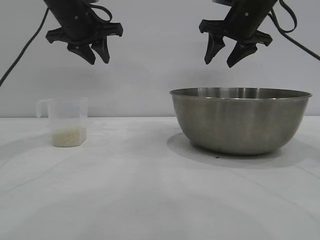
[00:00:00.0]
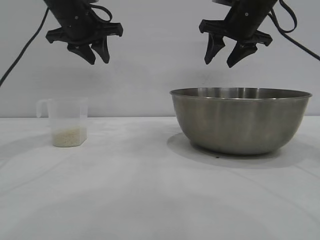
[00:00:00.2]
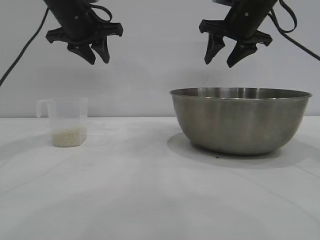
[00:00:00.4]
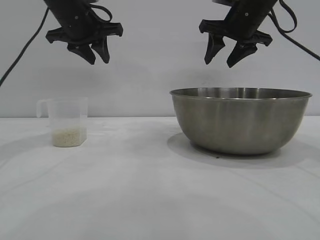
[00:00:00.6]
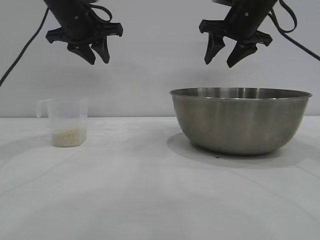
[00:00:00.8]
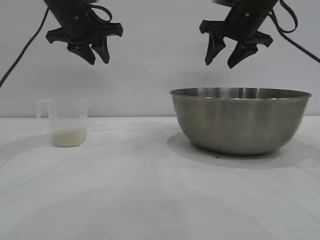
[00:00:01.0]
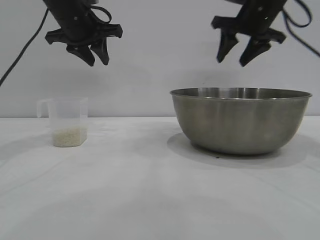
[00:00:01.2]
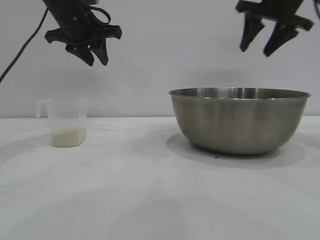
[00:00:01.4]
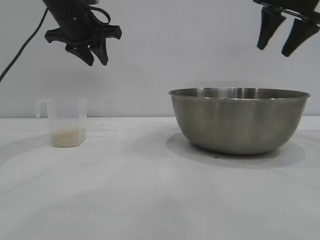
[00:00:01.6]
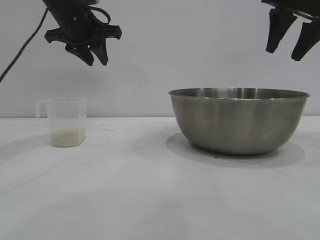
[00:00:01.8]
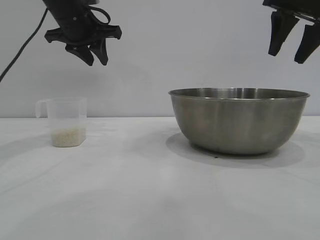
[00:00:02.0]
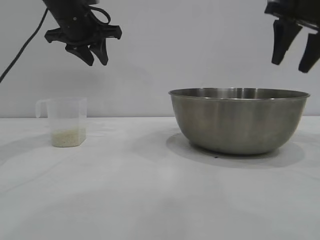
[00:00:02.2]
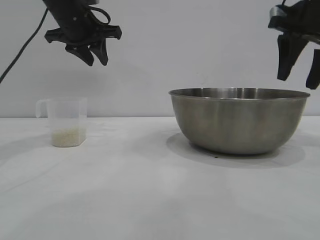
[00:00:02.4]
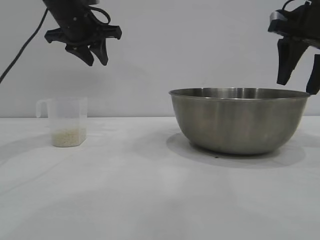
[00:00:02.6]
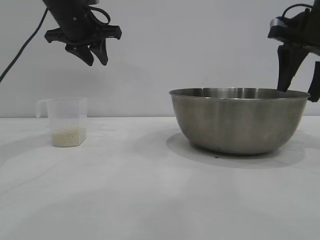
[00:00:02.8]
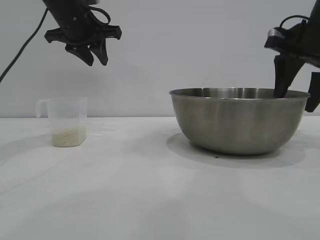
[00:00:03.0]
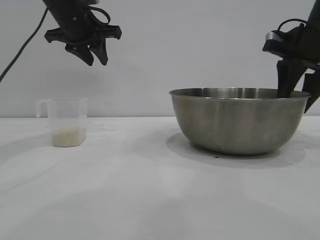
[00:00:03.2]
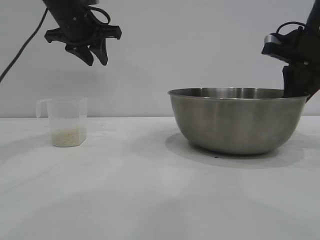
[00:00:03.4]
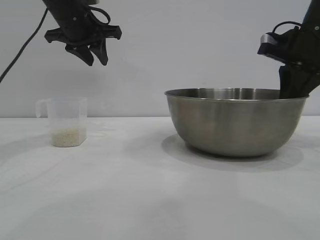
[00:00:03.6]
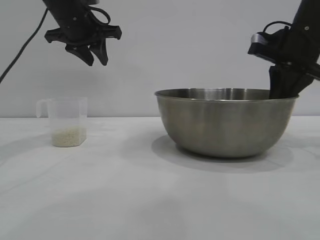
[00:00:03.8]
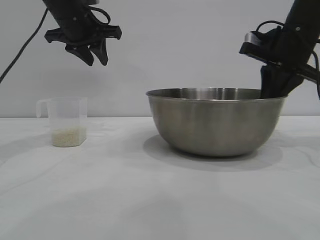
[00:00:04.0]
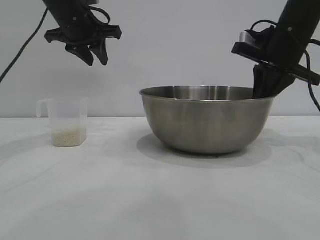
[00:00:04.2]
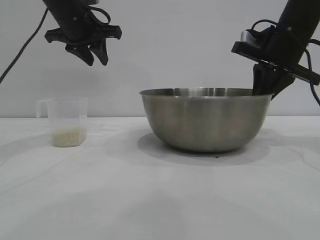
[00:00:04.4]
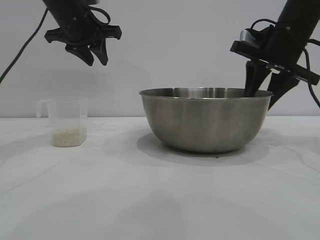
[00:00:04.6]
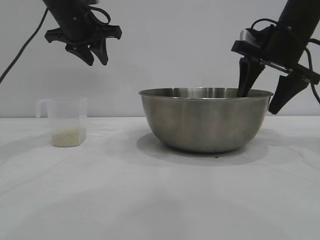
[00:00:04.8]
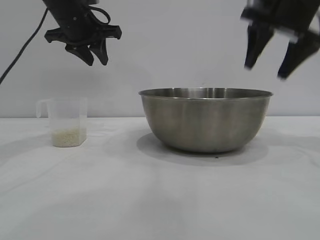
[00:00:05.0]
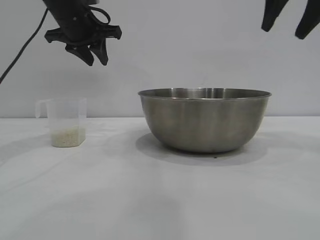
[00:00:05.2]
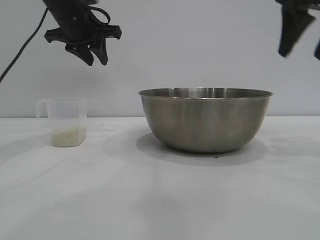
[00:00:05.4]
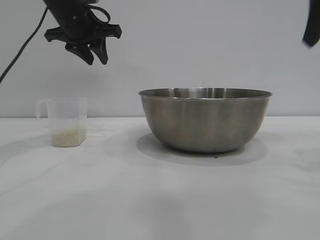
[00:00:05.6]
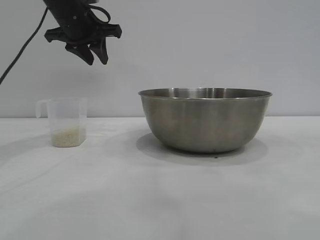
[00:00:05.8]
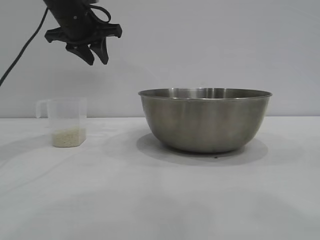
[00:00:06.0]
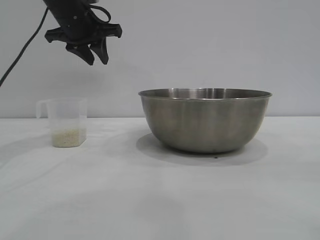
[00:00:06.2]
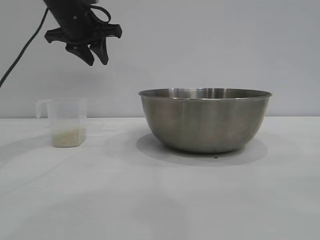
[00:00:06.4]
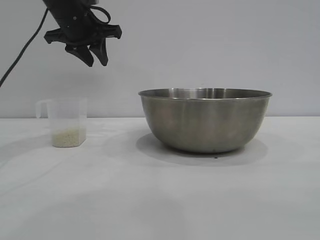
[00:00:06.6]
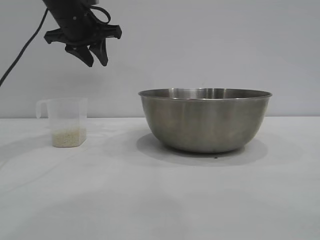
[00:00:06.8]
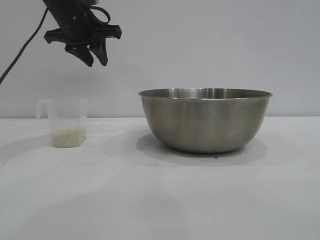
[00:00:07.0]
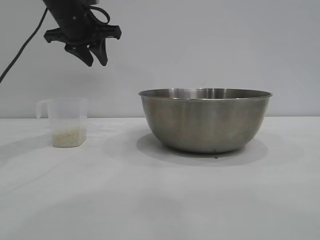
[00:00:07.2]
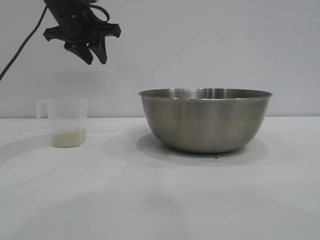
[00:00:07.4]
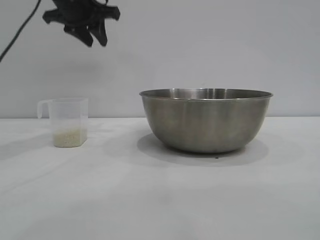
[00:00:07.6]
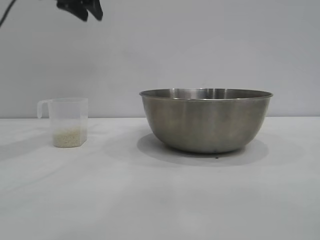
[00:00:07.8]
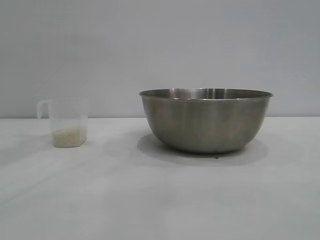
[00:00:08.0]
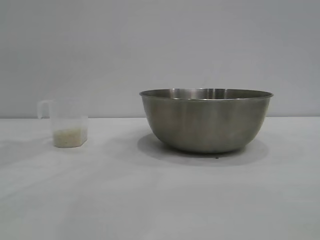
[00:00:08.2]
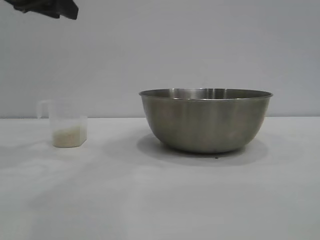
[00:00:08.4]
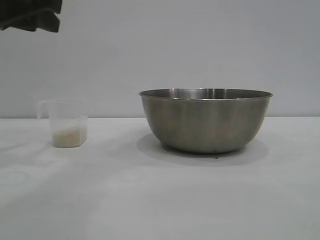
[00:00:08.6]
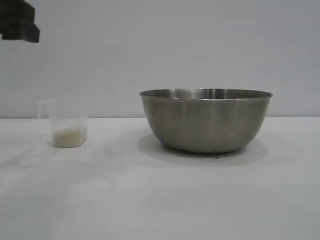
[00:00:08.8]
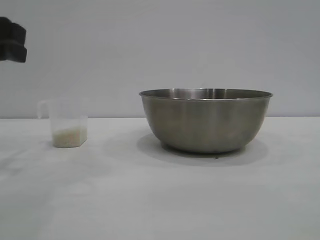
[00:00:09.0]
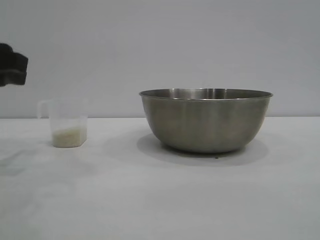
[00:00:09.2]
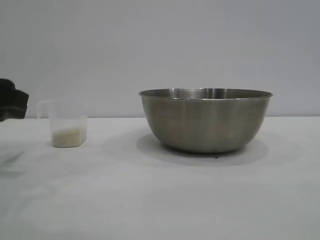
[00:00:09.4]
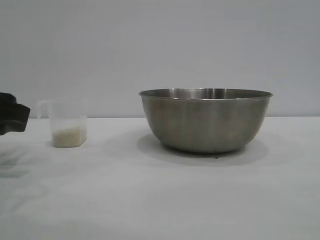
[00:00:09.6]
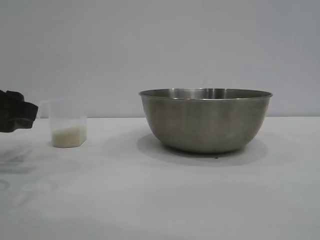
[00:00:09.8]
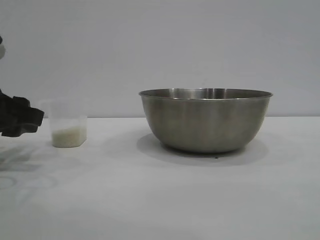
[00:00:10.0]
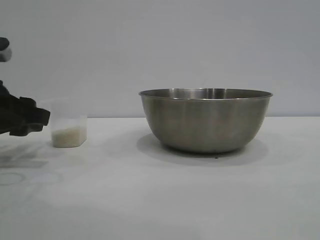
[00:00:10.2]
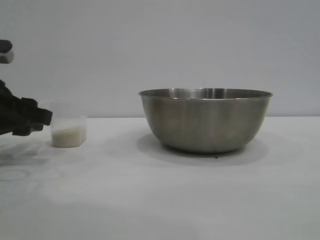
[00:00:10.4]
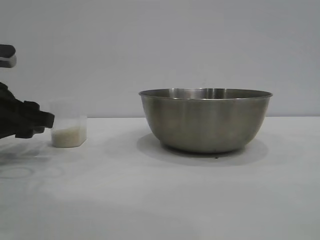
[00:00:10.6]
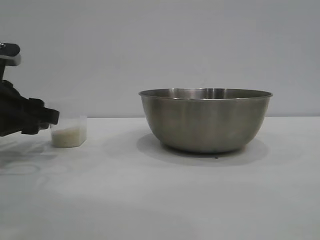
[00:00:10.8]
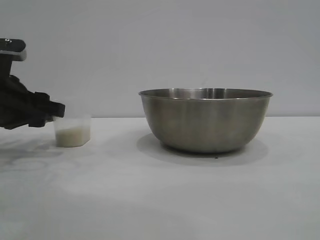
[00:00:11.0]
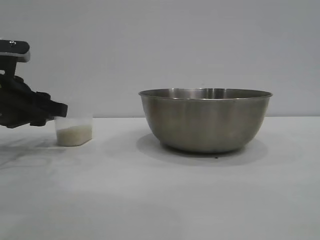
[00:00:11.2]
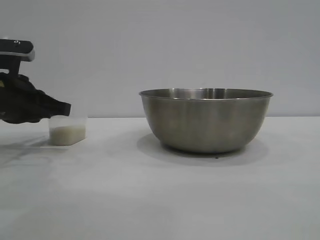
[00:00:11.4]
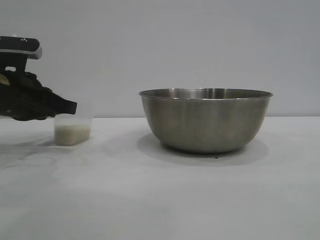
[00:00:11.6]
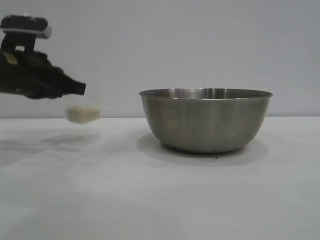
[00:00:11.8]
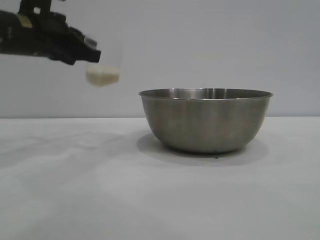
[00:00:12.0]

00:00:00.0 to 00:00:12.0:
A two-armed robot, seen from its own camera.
Task of the whole recording: the right gripper grasp the rice container and place it in the center of the table, the left gripper grasp the rice scoop and pour the rice into the rice container.
Step, 00:00:00.0 to 00:00:04.8: Move the bowl to the center of view with the right gripper.
Step, 00:00:05.0 to 00:00:11.6: Pick up the cup with rice in it with the left gripper.

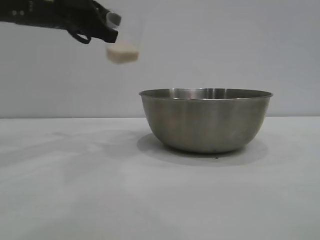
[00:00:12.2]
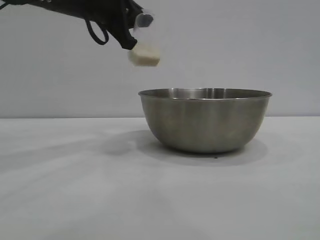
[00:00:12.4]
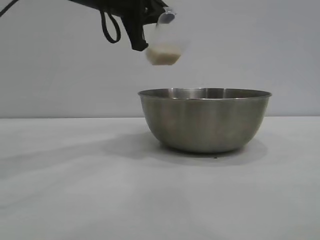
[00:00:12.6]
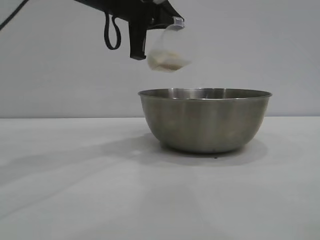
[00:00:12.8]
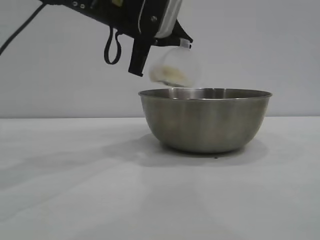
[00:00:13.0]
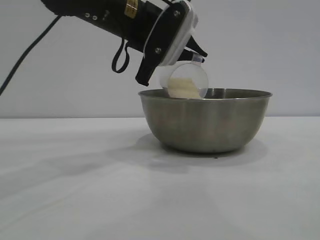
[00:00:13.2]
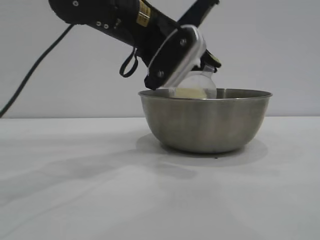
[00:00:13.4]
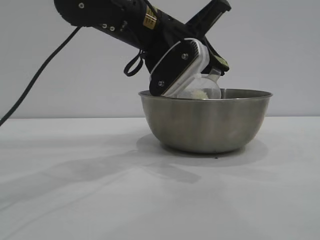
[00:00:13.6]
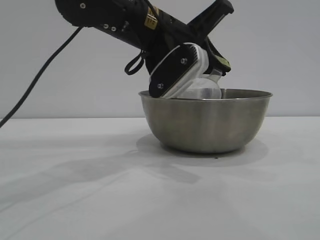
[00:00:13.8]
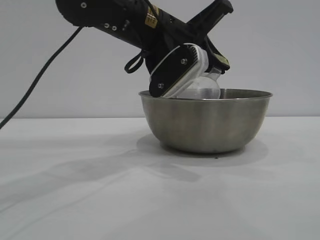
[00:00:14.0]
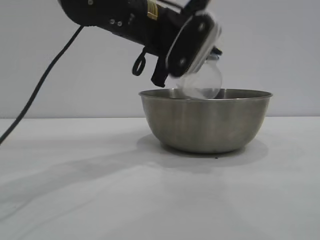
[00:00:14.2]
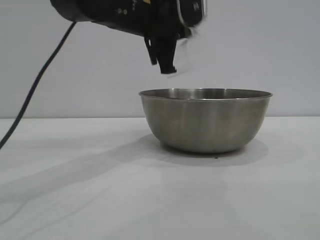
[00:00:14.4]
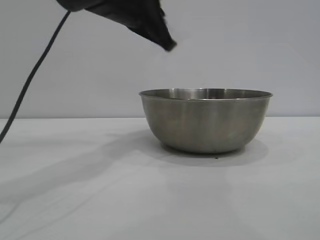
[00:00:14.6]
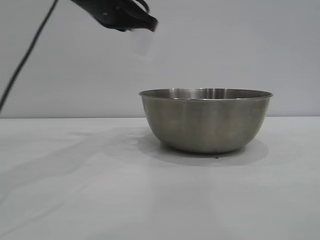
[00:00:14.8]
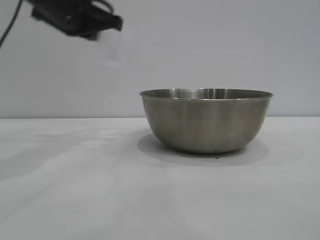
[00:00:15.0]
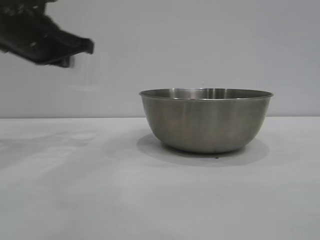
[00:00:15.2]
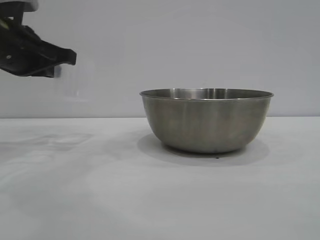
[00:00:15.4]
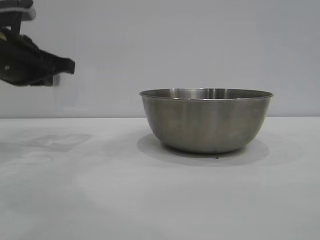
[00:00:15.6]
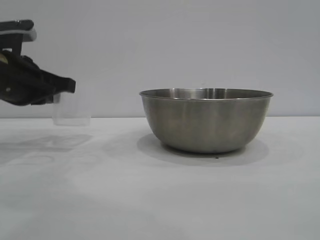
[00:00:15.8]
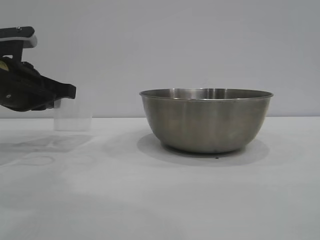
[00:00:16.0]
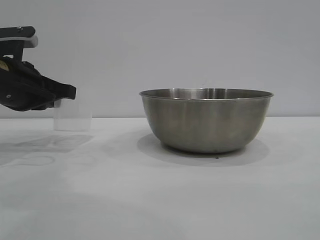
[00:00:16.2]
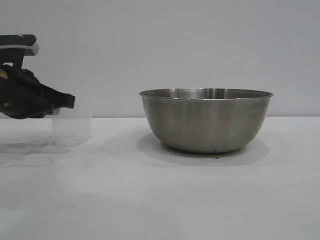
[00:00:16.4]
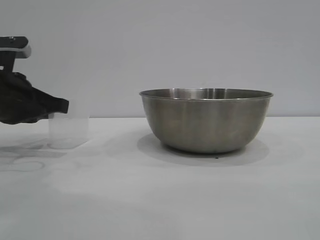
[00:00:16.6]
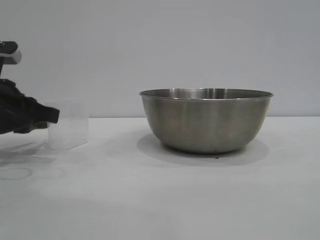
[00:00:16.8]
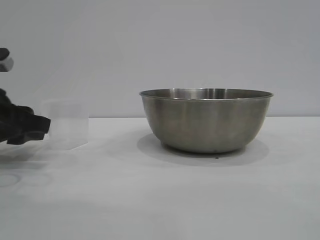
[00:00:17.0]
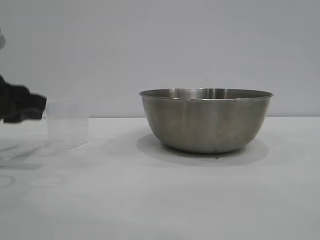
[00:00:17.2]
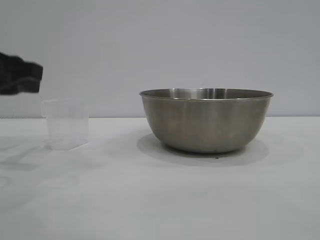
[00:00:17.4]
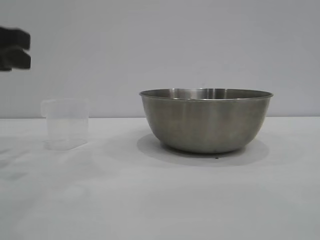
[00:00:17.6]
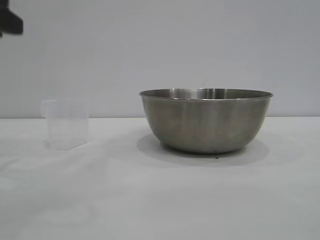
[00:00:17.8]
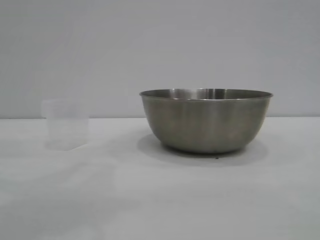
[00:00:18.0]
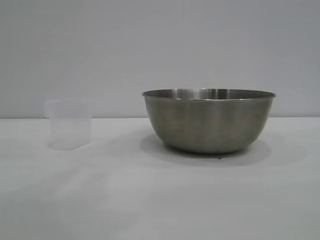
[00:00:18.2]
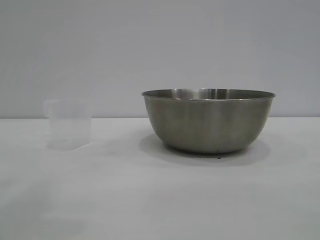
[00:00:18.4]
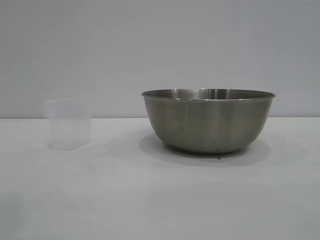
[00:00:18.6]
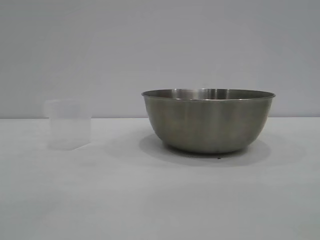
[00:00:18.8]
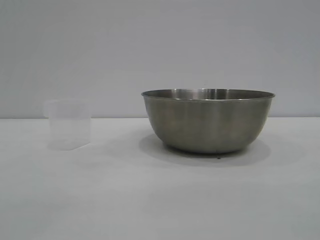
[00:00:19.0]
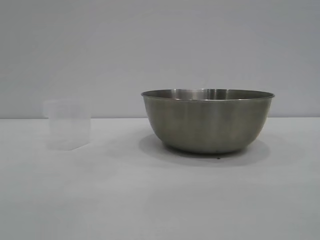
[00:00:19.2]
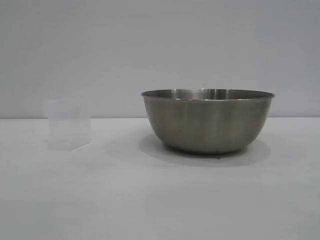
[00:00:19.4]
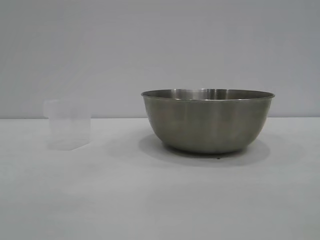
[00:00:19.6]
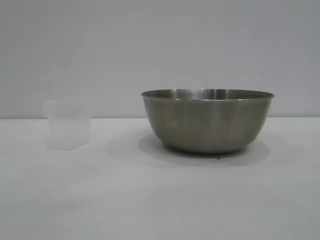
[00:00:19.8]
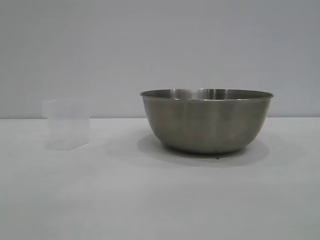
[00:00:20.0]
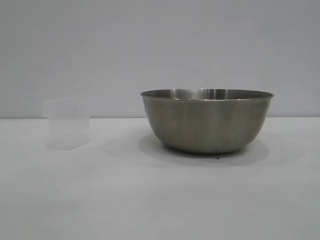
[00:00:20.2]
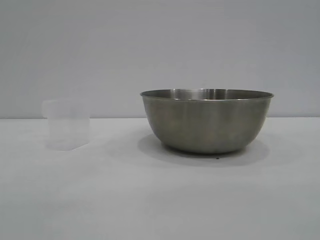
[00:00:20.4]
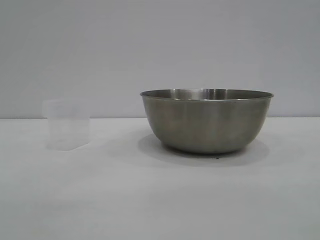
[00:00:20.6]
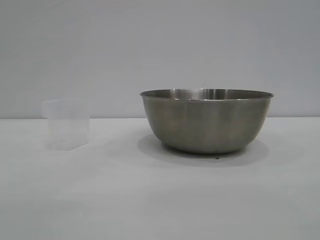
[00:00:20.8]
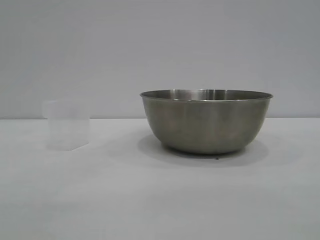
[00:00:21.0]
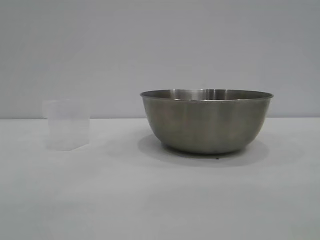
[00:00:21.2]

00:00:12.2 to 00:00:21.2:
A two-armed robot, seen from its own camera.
Task of the whole recording: the right gripper grasp the rice container and place it in the center of the table, the left gripper grasp the rice scoop and pour the rice into the rice container.
Step, 00:00:12.2 to 00:00:14.2: Pour the rice from the cup into the bowl with the left gripper.
Step, 00:00:14.4 to 00:00:17.4: Place the cup on the table with the left gripper.
